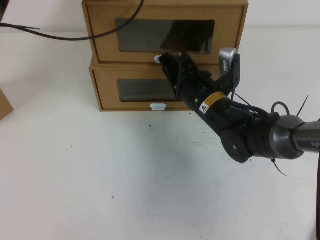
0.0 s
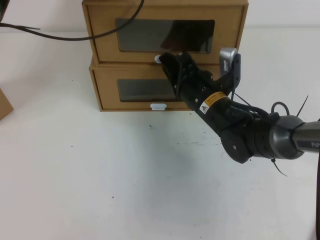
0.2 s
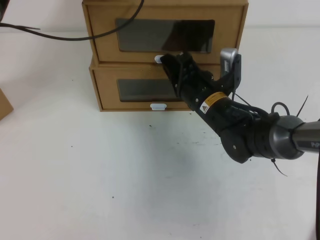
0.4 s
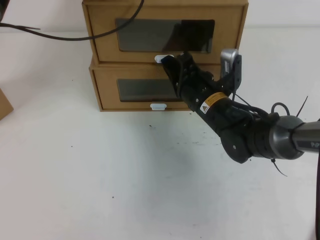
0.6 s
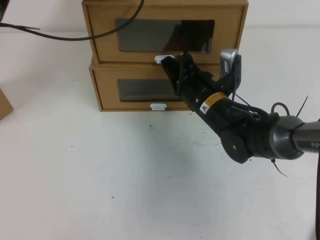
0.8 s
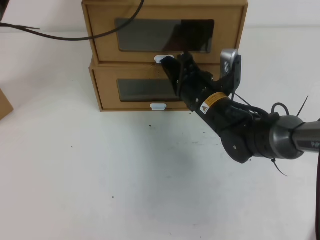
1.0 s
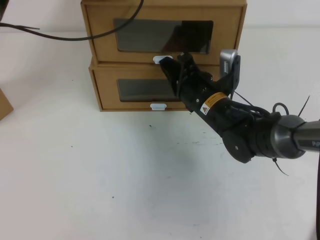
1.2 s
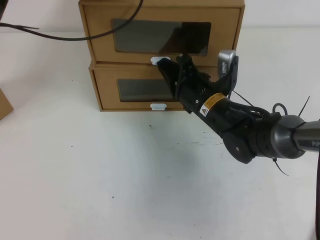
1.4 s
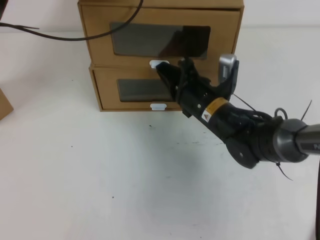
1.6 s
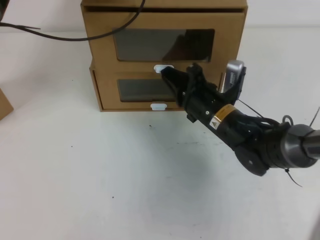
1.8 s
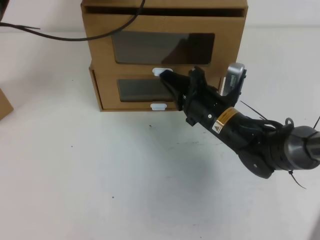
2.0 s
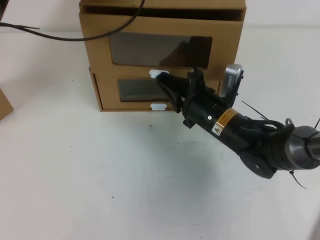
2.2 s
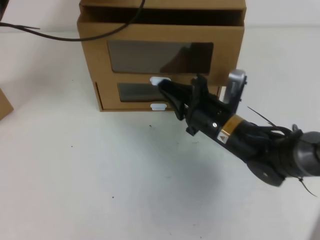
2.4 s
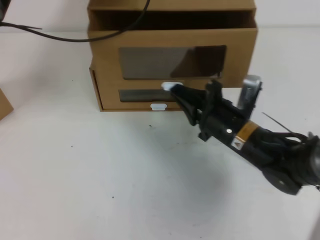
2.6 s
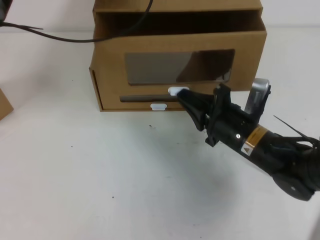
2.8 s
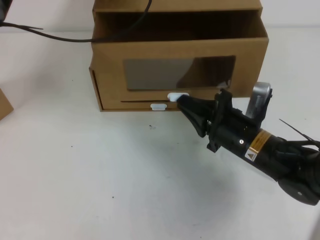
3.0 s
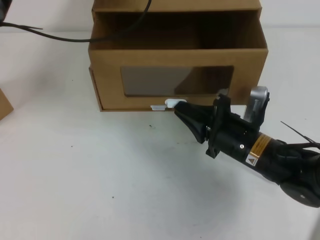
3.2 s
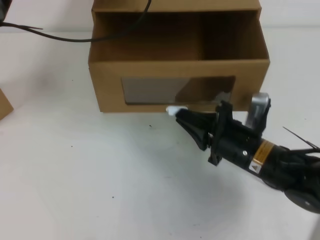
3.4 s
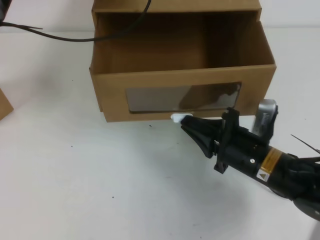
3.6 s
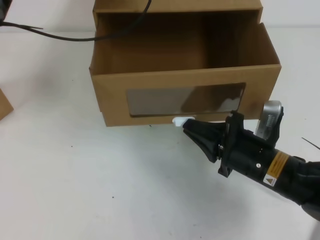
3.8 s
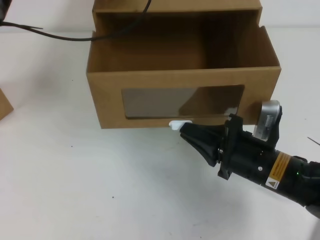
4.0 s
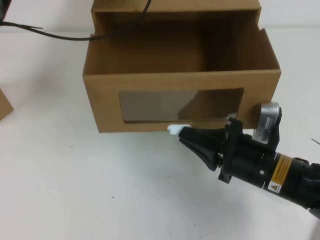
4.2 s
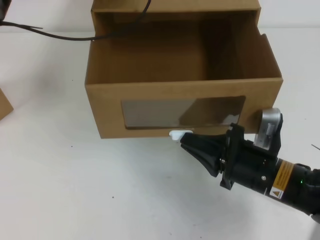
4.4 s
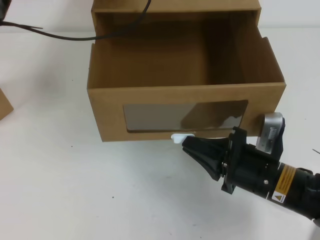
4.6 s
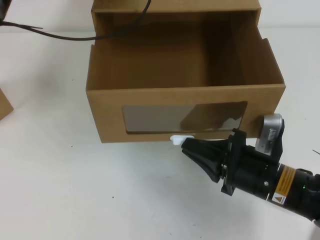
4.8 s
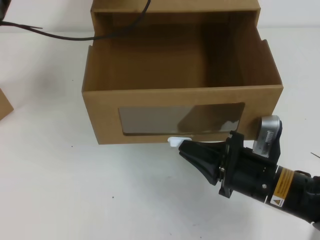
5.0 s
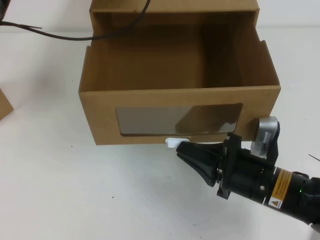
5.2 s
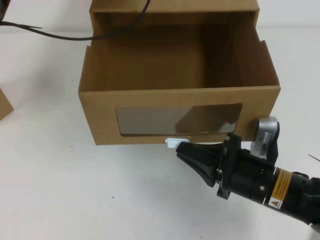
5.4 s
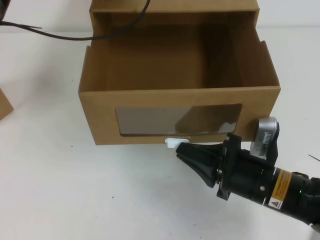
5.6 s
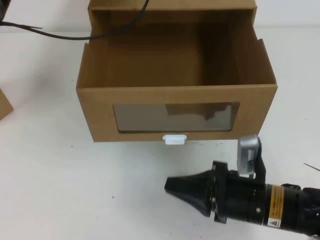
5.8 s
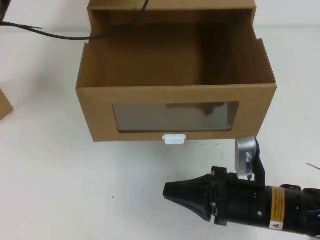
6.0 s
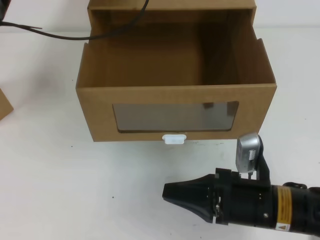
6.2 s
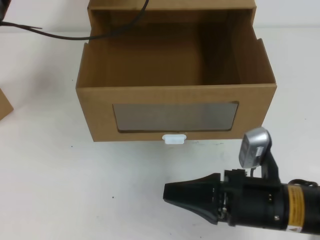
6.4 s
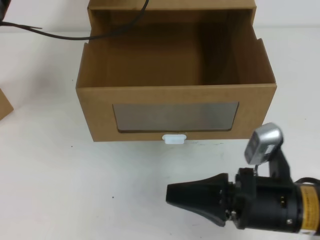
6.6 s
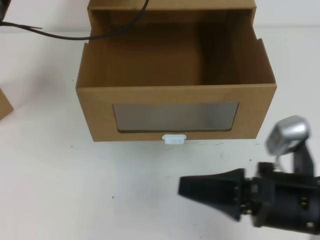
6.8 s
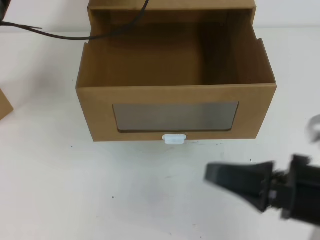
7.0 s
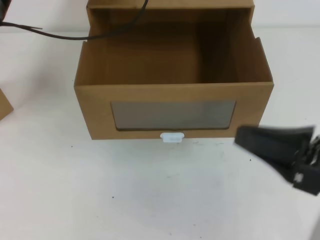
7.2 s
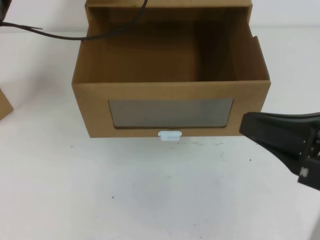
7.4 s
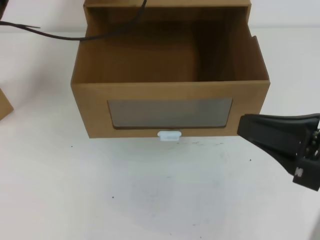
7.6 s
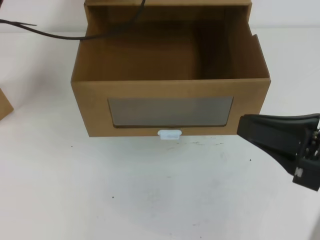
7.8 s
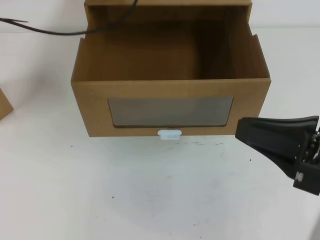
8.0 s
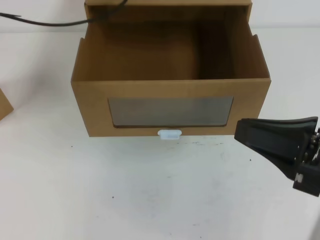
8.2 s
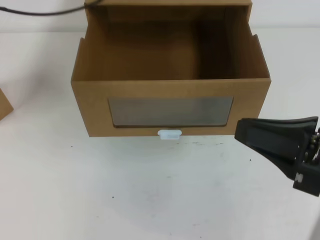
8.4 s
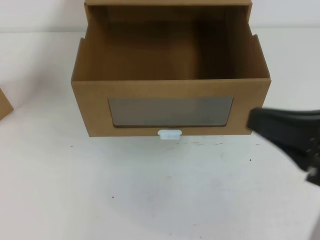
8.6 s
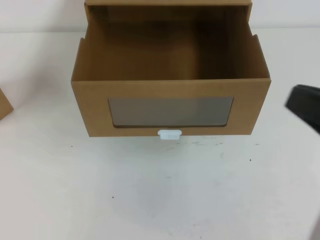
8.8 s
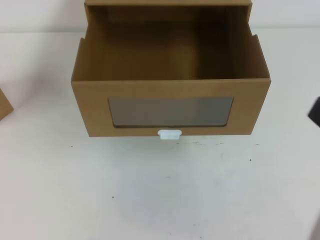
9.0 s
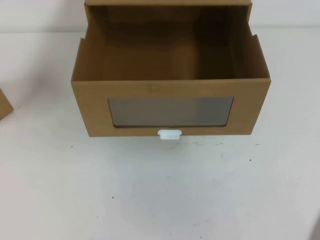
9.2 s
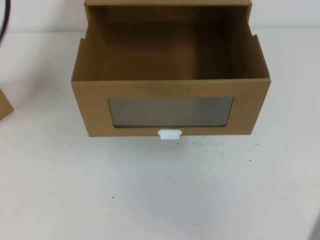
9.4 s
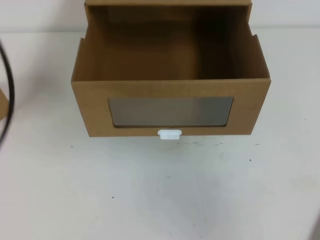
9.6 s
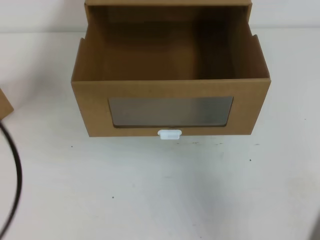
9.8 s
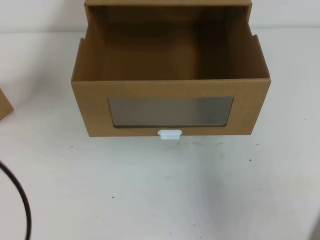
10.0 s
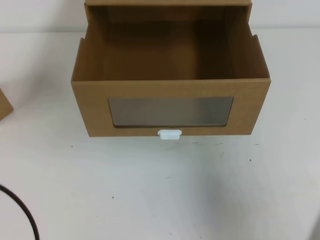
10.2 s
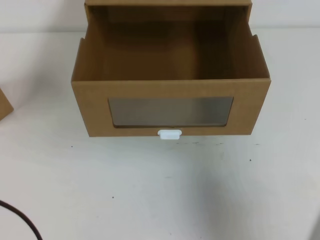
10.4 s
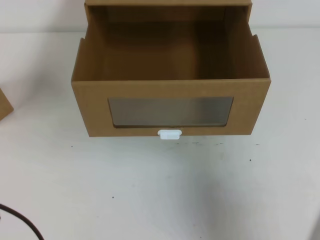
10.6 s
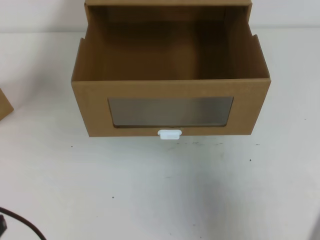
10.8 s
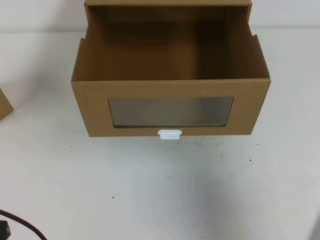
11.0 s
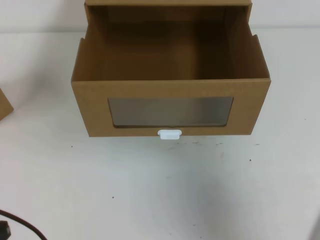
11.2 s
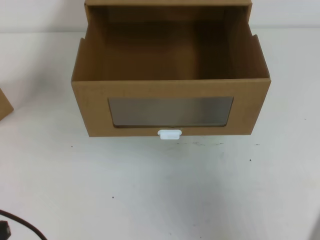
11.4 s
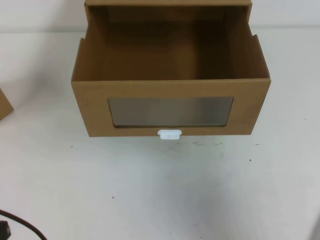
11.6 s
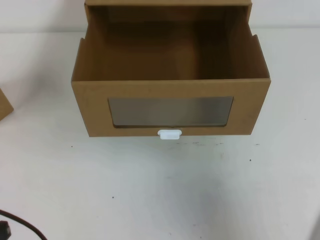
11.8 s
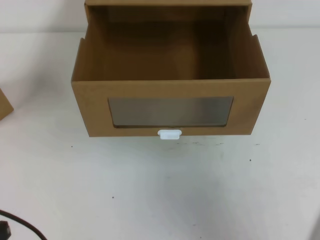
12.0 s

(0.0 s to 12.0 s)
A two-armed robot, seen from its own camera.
Task of the whole recording: open the shoebox on the table.
0.0 s - 1.6 s: The right gripper closes.
1.6 s - 3.0 s: The right gripper heads backward and to the right, covering approximately 10 cm.
3.0 s - 4.4 s: The right gripper moves backward, roughly 5 cm.
6.0 s - 7.6 s: The right gripper goes roughly 20 cm upward and to the right.
7.6 s - 9.0 s: The left gripper shifts some 25 cm upward, backward and to the left.
9.0 s - 10.4 s: The left gripper heads backward and downward, covering some 35 cm. The right gripper travels to the right by some 5 cm.

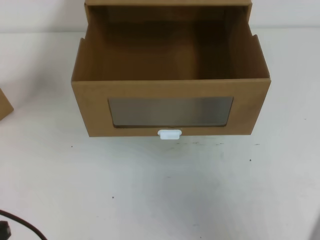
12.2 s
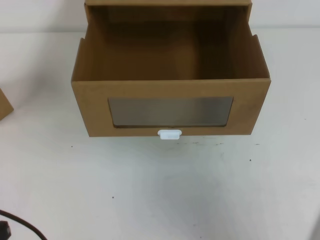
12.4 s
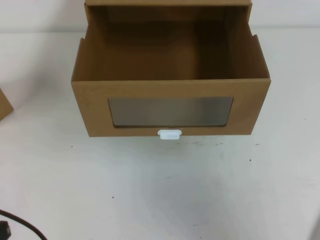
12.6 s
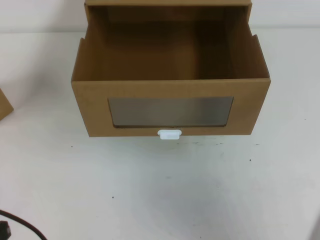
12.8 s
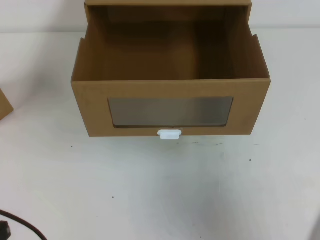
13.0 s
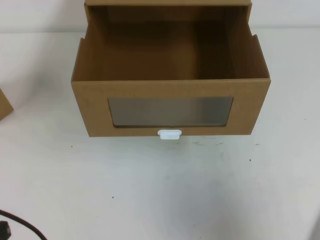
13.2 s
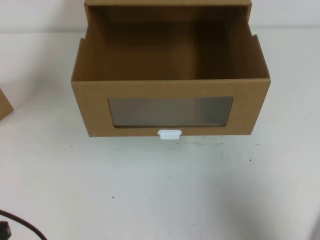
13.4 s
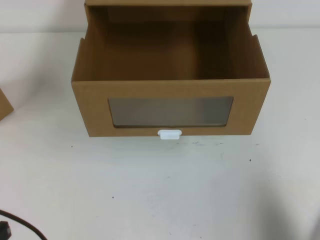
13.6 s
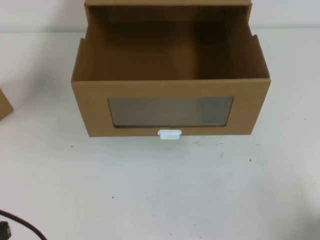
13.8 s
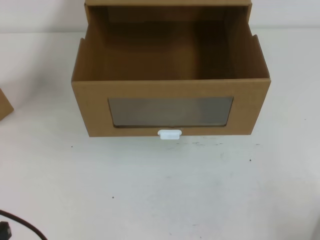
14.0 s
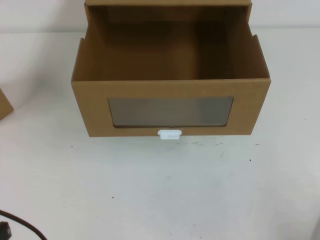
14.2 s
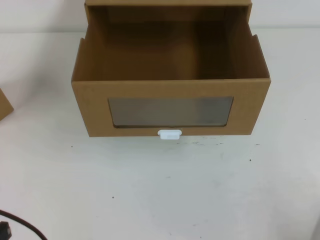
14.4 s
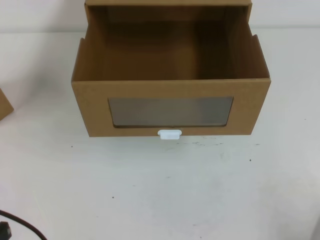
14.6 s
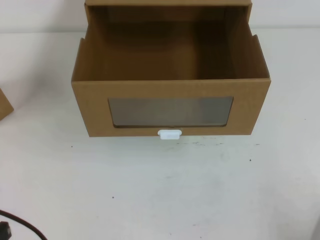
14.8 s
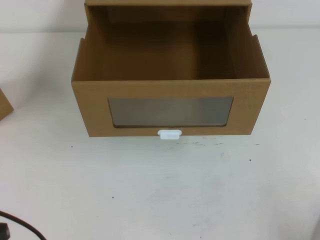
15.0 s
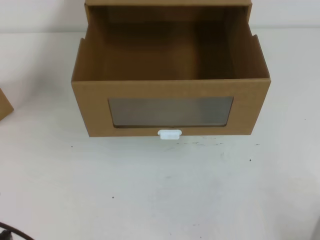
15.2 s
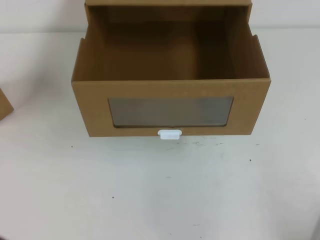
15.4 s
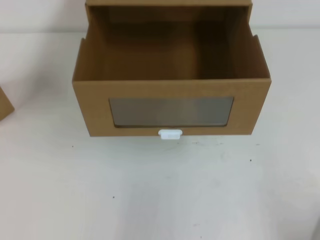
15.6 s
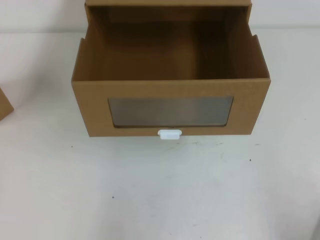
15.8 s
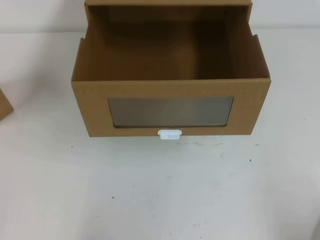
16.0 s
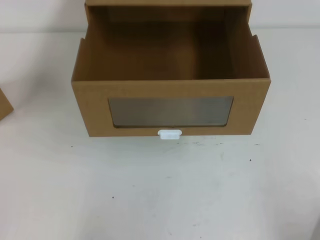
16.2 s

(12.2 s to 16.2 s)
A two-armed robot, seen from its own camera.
Task of the whole recording: open the shoebox on the table.
Step, 12.2 s - 16.2 s: Open the shoe box.
12.2 s - 13.6 s: The right gripper is displaced downward by about 10 cm.
13.6 s - 14.8 s: The right gripper moves downward, about 10 cm.
14.8 s - 16.2 s: The left gripper goes approximately 10 cm downward.

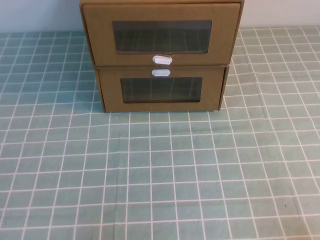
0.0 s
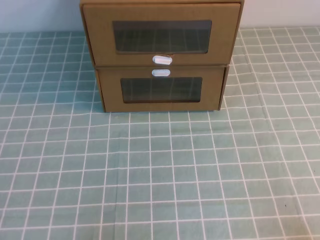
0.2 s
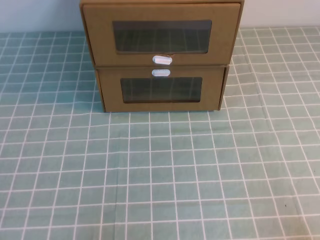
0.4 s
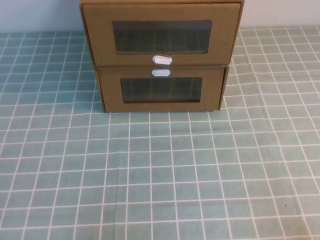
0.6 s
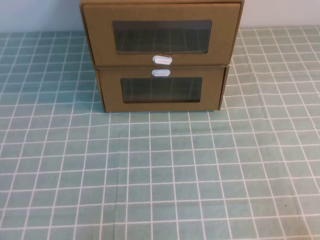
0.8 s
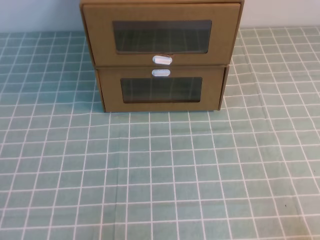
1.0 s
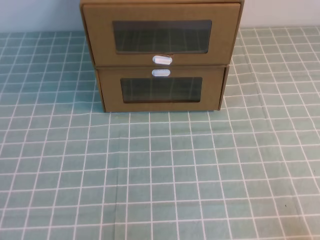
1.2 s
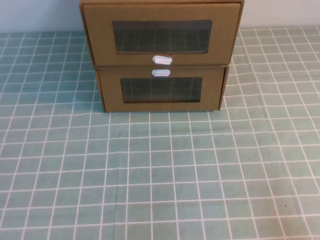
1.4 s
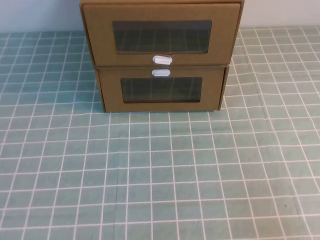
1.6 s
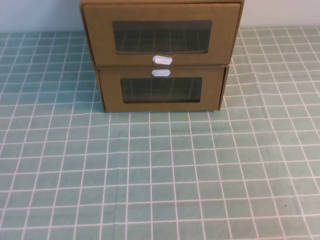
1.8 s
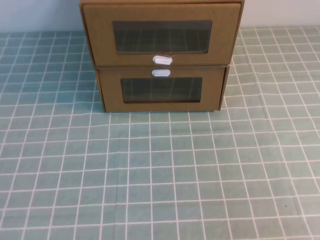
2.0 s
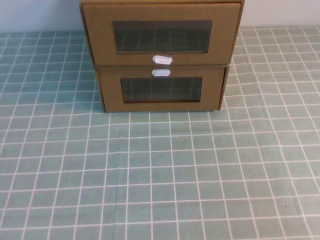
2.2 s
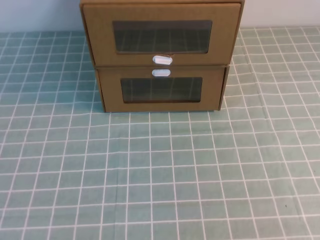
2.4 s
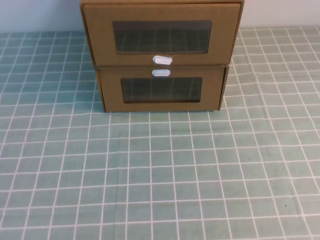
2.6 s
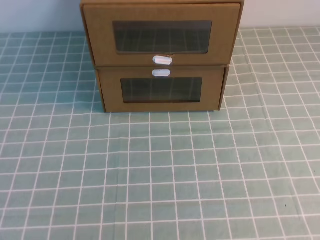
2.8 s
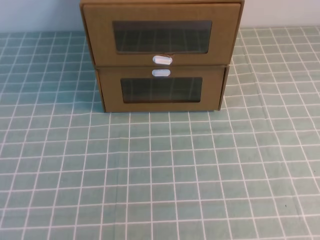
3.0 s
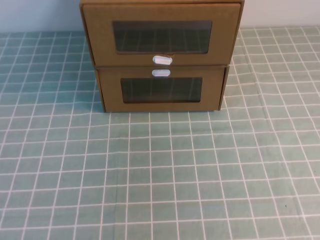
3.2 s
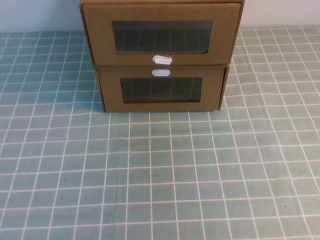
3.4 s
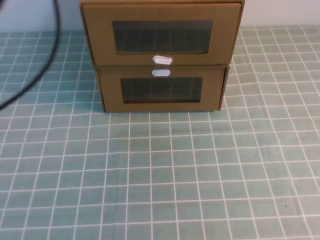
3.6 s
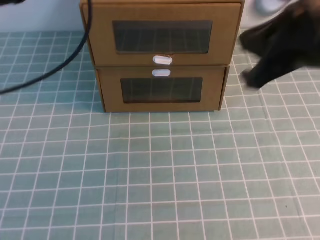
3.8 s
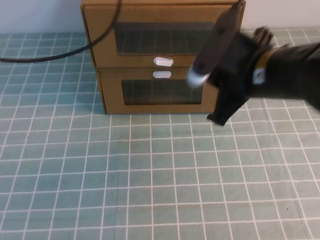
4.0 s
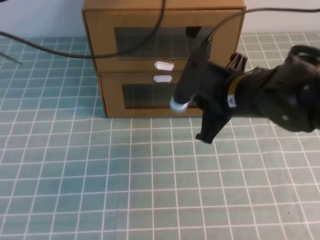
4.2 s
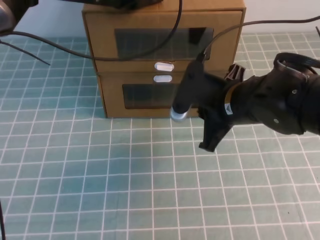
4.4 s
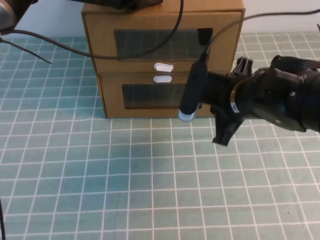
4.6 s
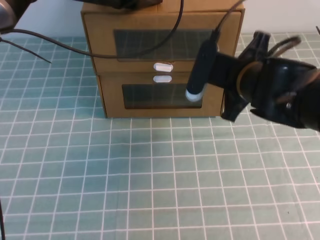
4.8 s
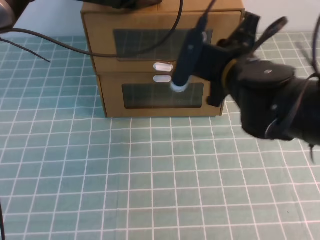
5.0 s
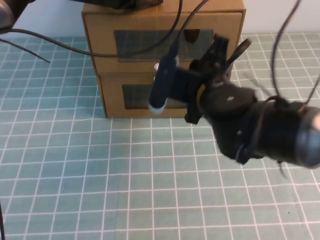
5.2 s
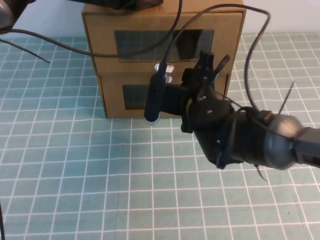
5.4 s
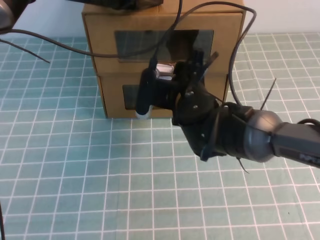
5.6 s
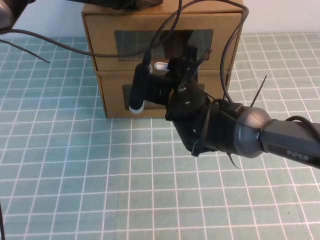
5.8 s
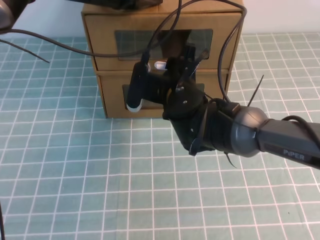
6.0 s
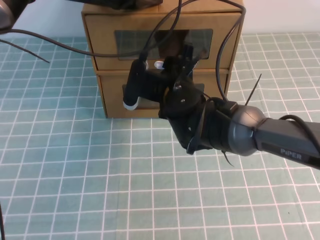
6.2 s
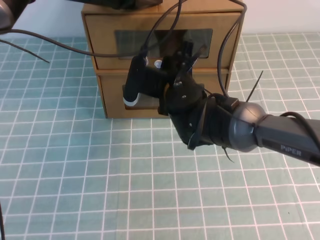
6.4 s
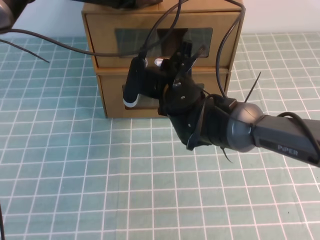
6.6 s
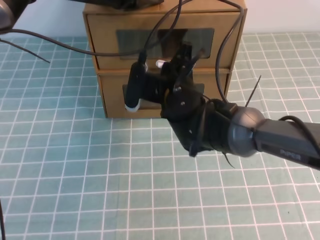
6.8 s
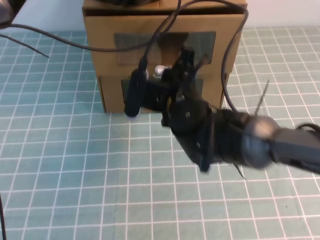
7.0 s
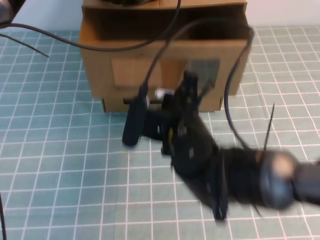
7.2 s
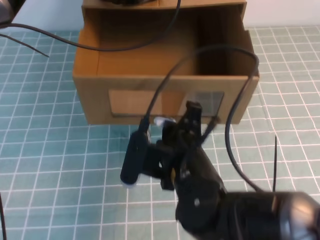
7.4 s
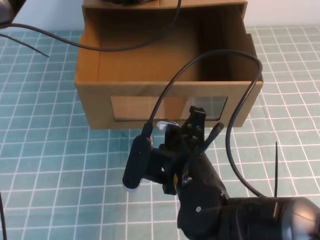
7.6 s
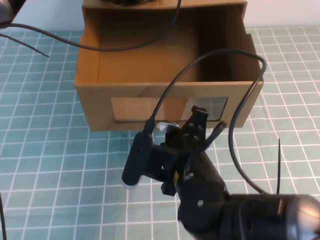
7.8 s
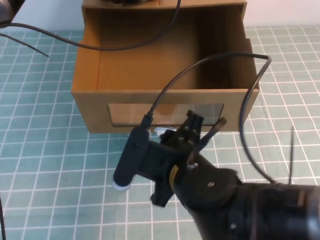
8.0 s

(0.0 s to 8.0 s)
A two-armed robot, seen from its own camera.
Task of the whole recording: open the shoebox on the cyan tablecloth.
3.2 s - 4.8 s: The left gripper heads forward, to the right and downward, covering approximately 35 cm, while the right gripper moves downward, forward and to the left, approximately 40 cm.
4.8 s - 6.4 s: The right gripper heads to the left, covering roughly 10 cm, and opens its fingers.
6.4 s - 8.0 s: The right gripper moves backward, some 15 cm, and closes, then opens again.
